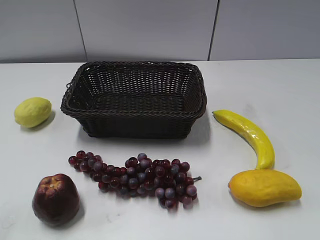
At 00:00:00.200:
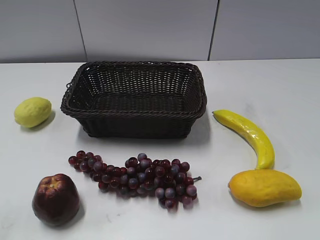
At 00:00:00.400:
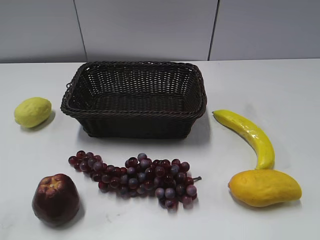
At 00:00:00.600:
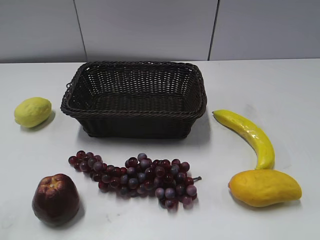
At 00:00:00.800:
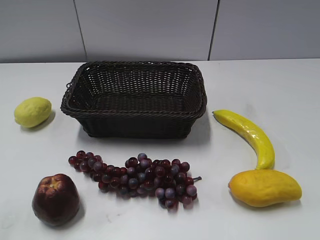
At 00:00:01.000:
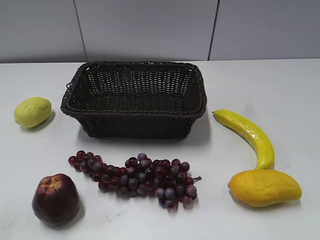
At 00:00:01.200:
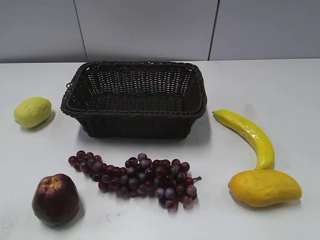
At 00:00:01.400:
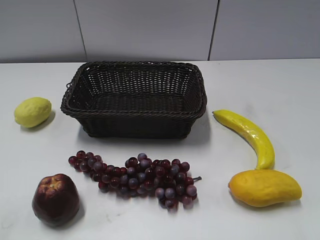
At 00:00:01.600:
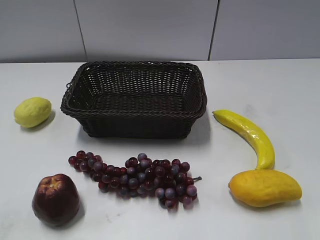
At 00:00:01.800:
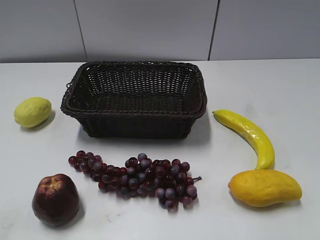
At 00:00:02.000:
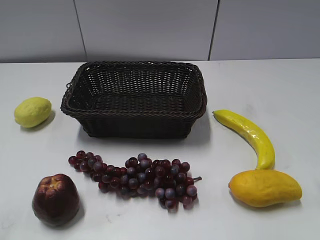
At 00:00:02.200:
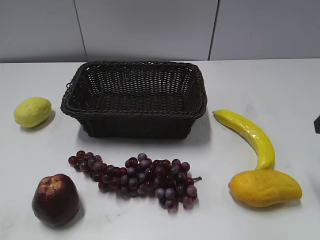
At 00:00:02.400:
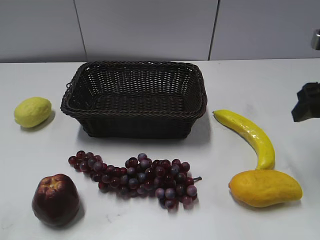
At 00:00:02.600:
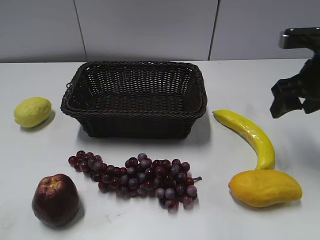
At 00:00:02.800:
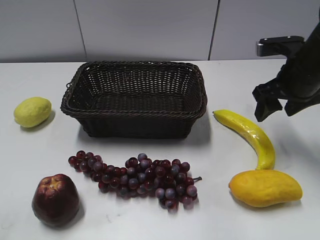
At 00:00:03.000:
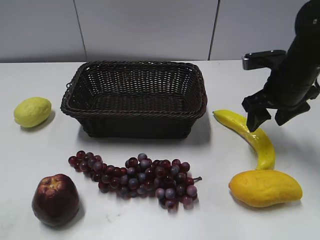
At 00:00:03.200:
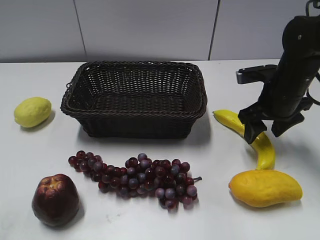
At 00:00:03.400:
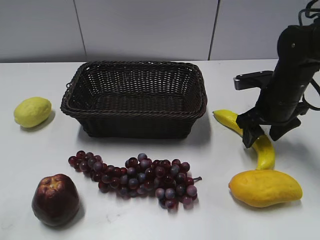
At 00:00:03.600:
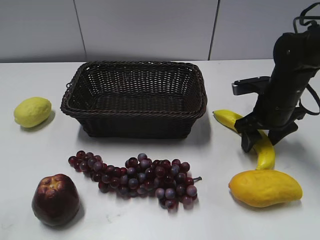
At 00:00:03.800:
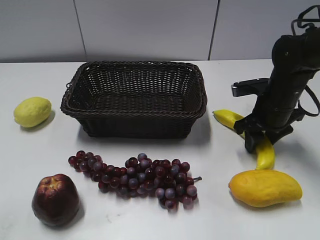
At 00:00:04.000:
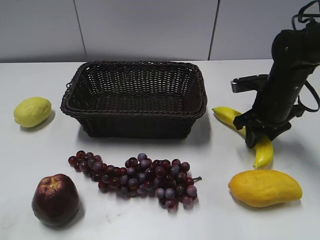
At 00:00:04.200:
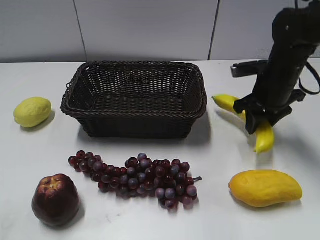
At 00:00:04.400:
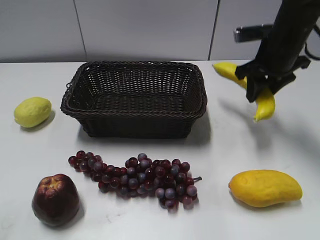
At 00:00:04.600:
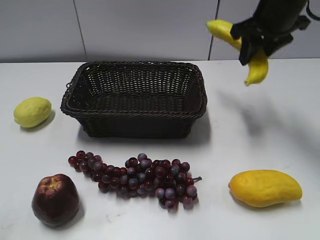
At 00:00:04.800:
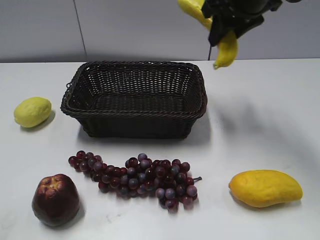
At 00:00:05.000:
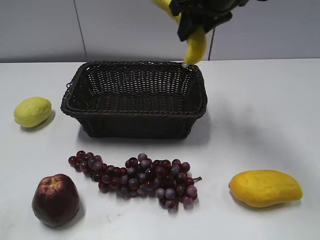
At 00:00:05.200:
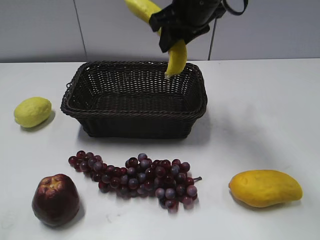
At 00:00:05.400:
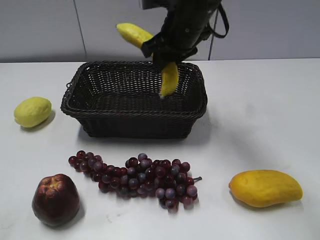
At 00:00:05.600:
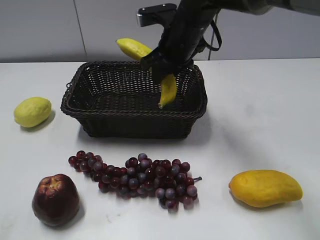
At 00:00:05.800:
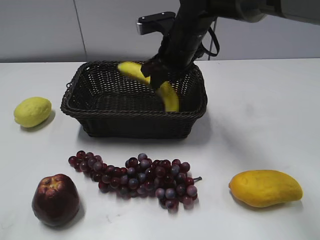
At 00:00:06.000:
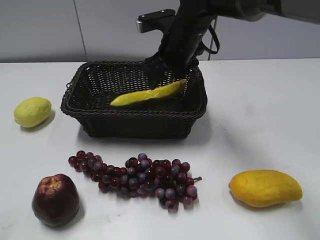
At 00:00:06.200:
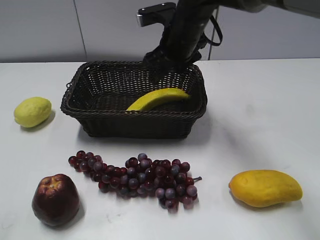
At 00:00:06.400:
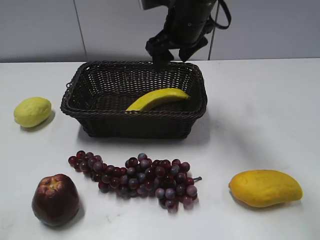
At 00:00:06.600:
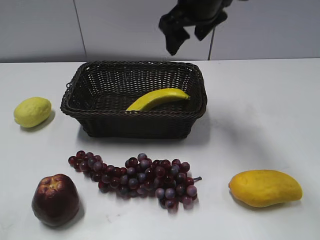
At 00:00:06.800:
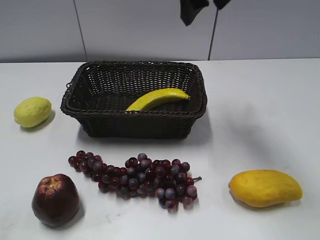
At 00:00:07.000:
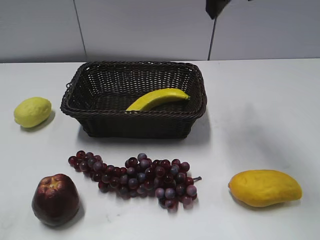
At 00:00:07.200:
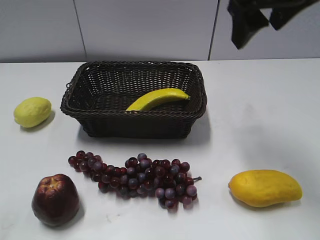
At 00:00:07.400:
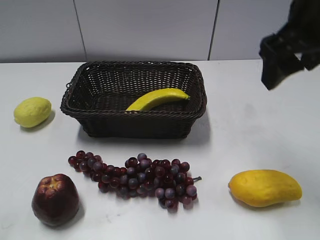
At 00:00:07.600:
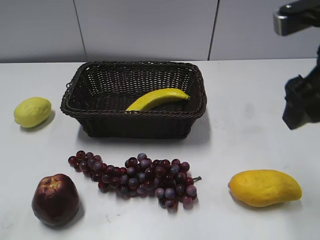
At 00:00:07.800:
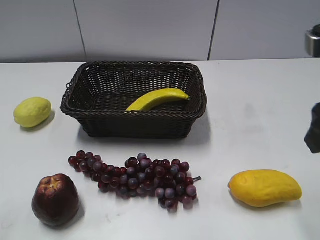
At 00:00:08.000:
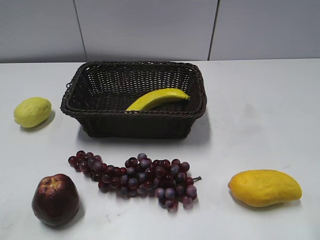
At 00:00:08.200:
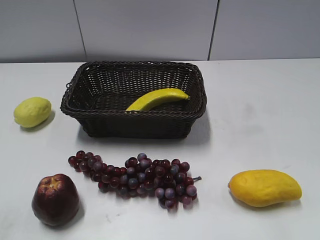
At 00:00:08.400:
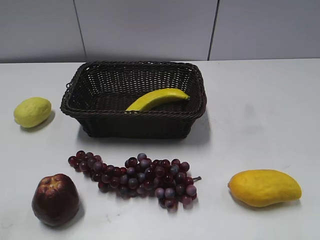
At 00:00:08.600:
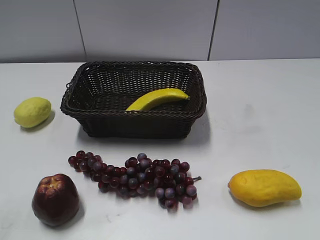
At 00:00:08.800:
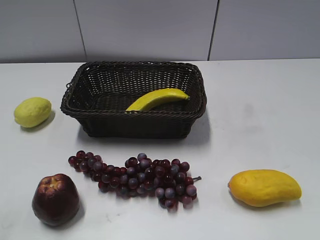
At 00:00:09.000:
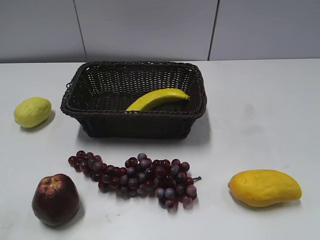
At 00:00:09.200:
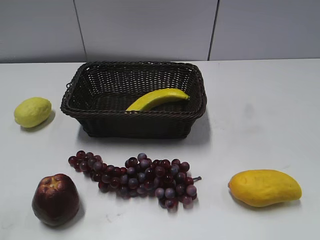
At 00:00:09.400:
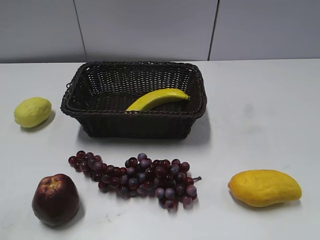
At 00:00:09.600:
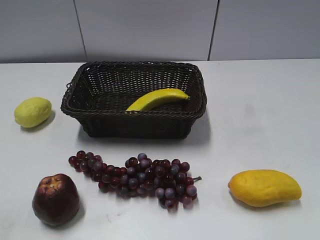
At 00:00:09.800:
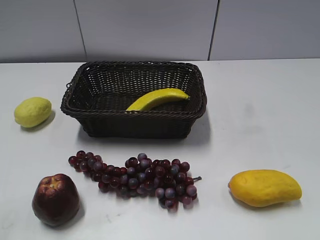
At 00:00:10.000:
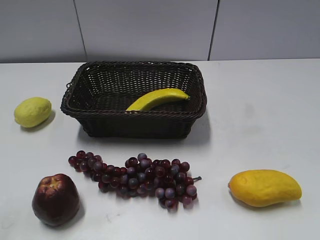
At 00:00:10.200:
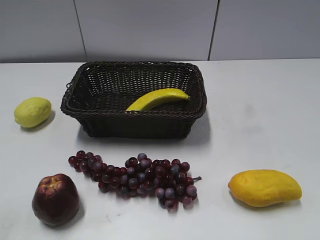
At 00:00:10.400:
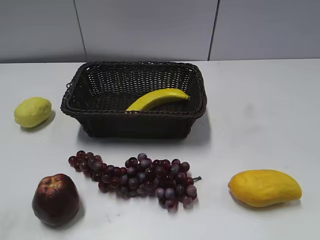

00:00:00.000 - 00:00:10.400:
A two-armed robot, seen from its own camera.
Step, 00:00:02.200 - 00:00:03.800: Grasp the banana with right gripper.
Step, 00:00:04.000 - 00:00:06.000: Place the banana in the basket with right gripper.
00:00:01.400 - 00:00:03.000: The right gripper moves forward and downward, some 30 cm.
00:00:03.000 - 00:00:04.400: The right gripper ends up approximately 5 cm from where it was, and closes its fingers.
00:00:04.400 - 00:00:06.000: The right gripper shifts some 15 cm to the left, and opens.
00:00:06.000 - 00:00:07.400: The right gripper shifts roughly 25 cm backward, to the right and upward.
00:00:07.400 - 00:00:09.000: The right gripper heads backward and to the right, covering approximately 30 cm.
